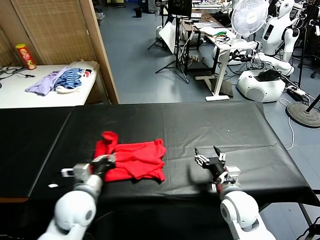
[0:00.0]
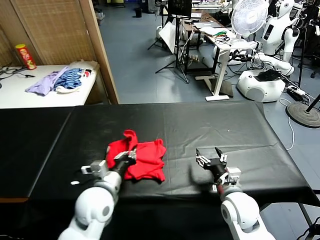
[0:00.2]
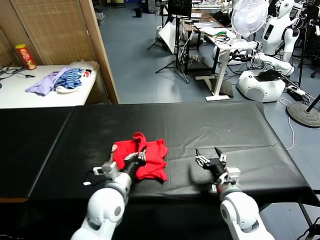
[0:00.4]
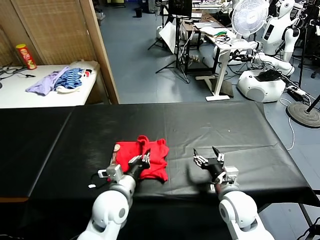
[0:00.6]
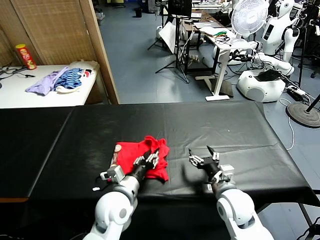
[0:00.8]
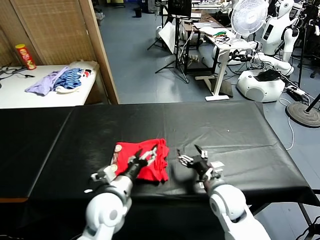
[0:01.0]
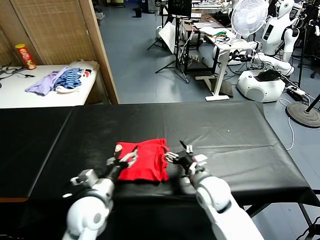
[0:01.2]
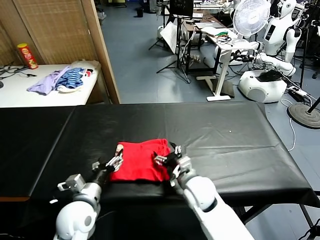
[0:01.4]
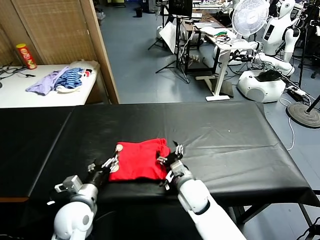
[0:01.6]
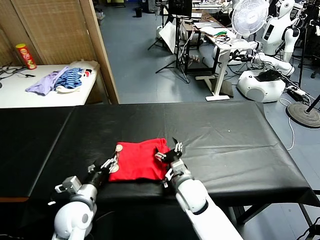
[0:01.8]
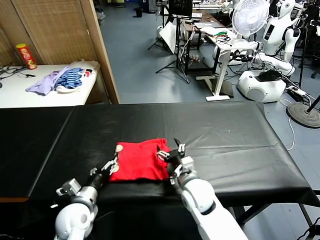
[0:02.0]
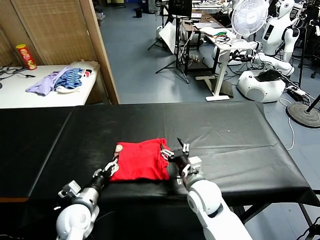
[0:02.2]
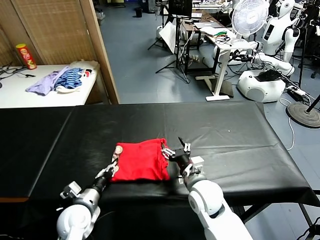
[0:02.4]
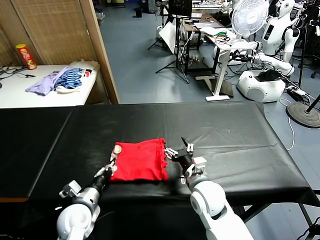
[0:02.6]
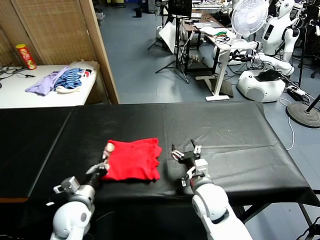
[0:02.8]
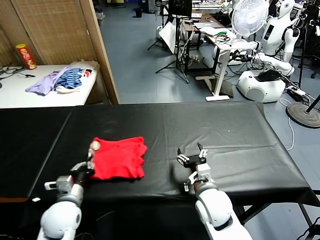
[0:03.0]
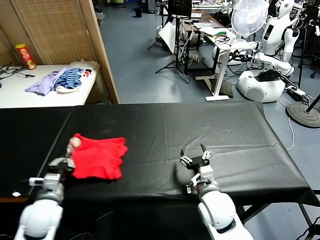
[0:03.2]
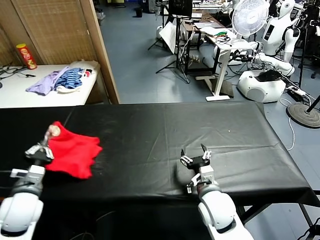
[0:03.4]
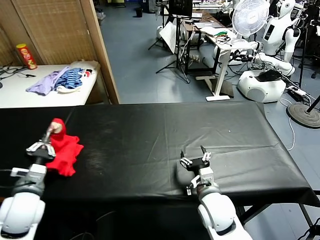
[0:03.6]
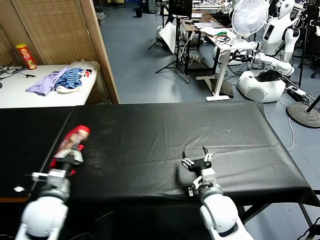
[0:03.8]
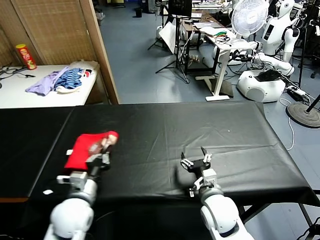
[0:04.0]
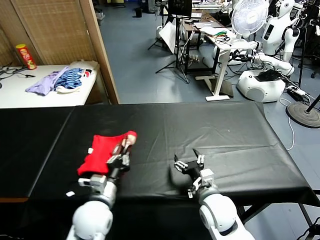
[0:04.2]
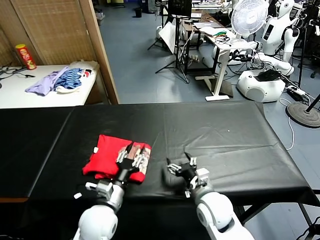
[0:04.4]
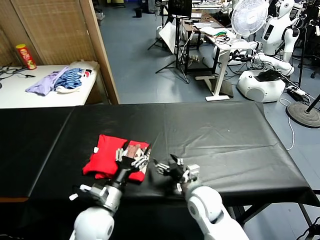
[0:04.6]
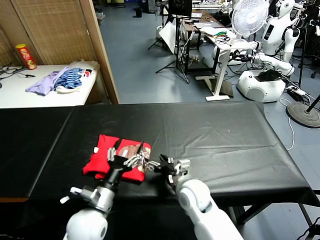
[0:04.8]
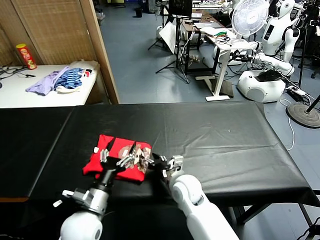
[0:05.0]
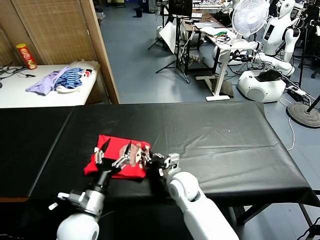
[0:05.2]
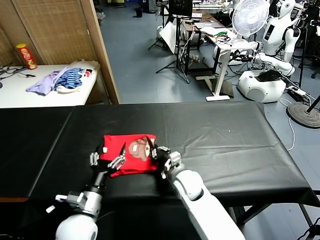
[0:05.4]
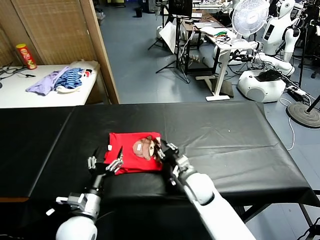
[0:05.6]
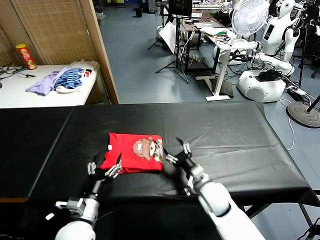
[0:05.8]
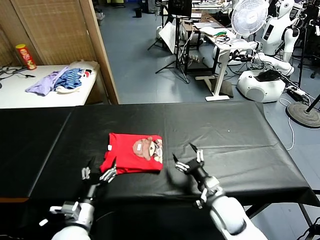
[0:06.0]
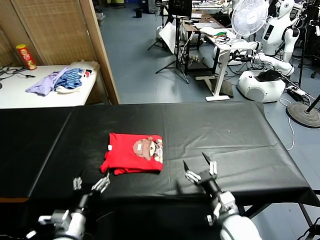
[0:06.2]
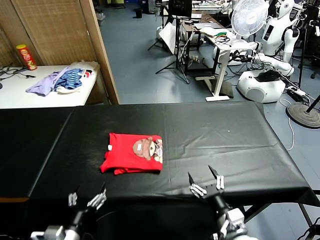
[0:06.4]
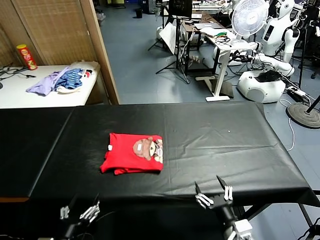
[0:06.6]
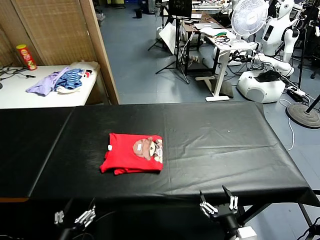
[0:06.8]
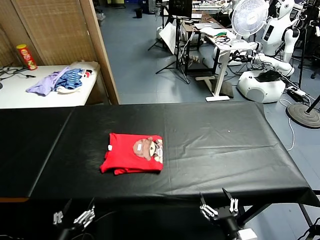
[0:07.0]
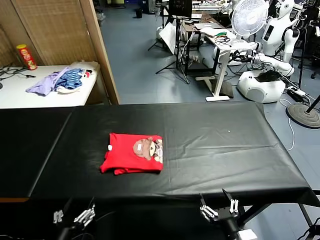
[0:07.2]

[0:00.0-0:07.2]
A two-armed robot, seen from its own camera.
Task of the whole recording: fold and organize the clothes.
Step, 0:01.0 to 0:04.2: Flip the folded clothes over with left gripper.
Step, 0:04.6 to 0:05.6: Drag the clothes to the center of the table.
0:00.0 to 0:01.4: The left gripper goes to the right and returns, roughly 10 cm each way, and opens its fingers, while the right gripper travels to the left and forward by approximately 15 cm.
0:01.4 to 0:02.8: The right gripper moves some 5 cm; the left gripper moves about 5 cm, and closes.
0:02.8 to 0:04.4: The left gripper goes some 10 cm to the right, and opens its fingers.
0:04.4 to 0:05.8: The right gripper shifts some 5 cm forward, and closes, then opens again. Meanwhile the left gripper shifts about 5 cm to the left, and opens its fingers.
0:05.8 to 0:07.2: The right gripper goes about 25 cm backward. The left gripper is displaced backward and upward by approximately 15 cm.
